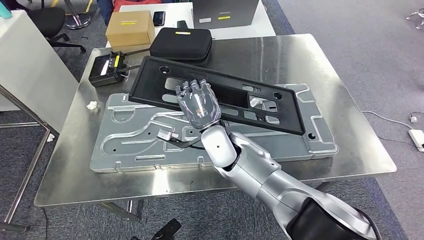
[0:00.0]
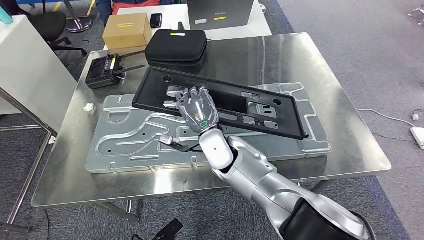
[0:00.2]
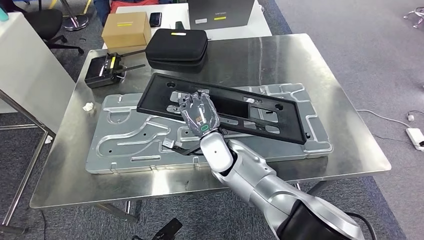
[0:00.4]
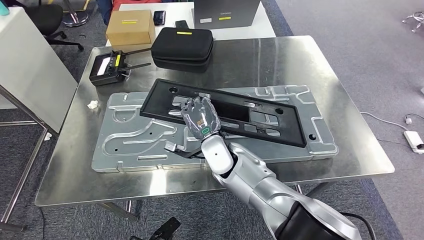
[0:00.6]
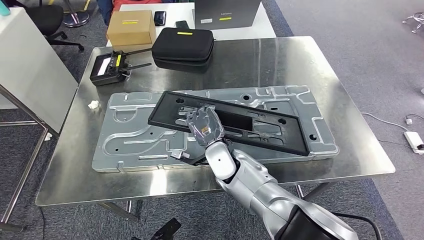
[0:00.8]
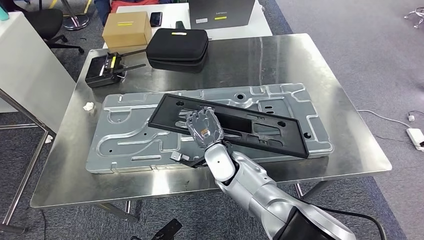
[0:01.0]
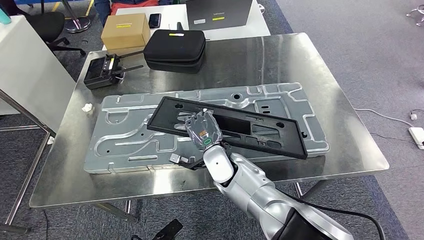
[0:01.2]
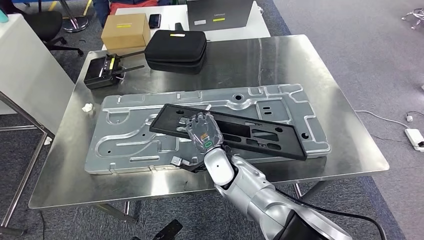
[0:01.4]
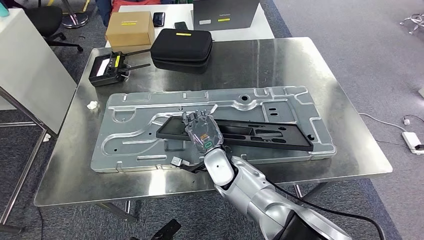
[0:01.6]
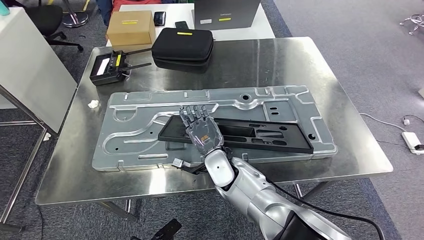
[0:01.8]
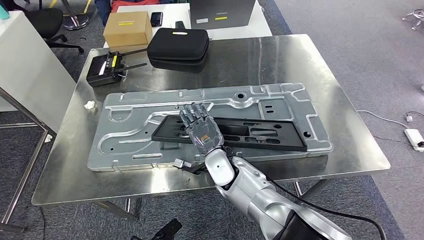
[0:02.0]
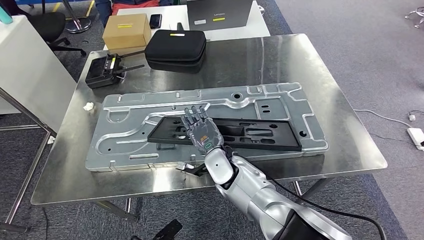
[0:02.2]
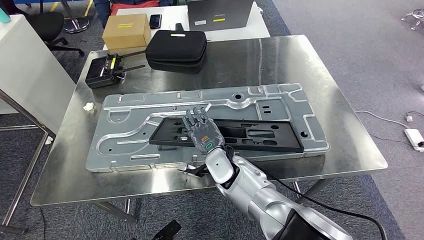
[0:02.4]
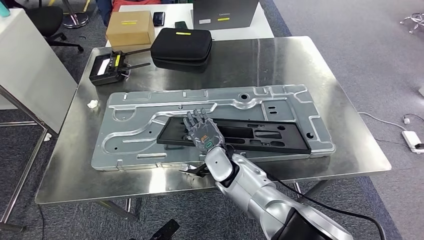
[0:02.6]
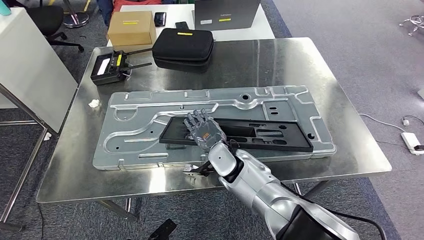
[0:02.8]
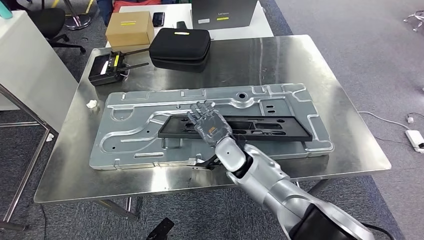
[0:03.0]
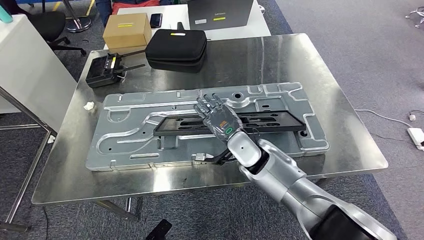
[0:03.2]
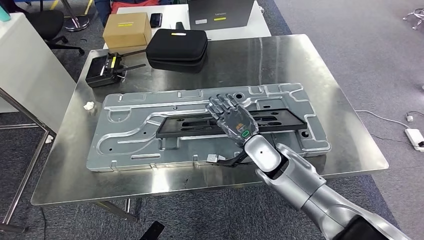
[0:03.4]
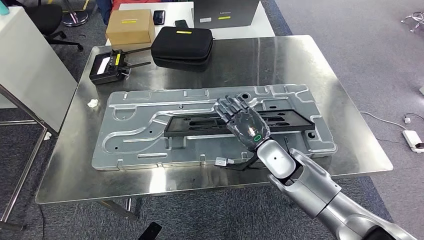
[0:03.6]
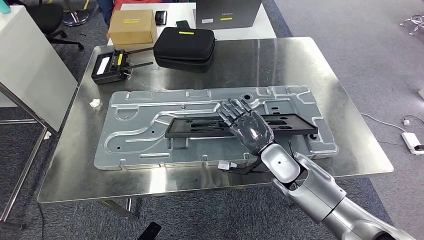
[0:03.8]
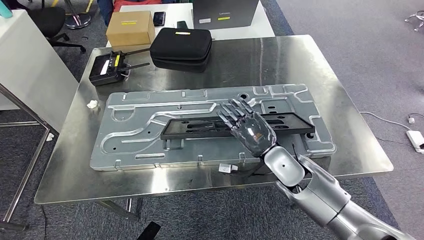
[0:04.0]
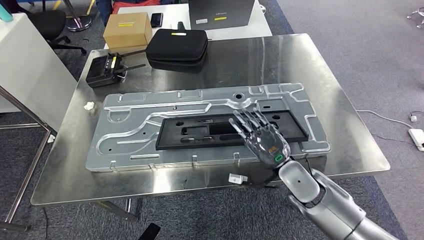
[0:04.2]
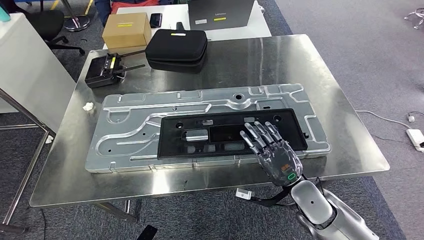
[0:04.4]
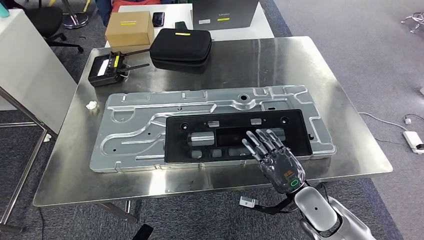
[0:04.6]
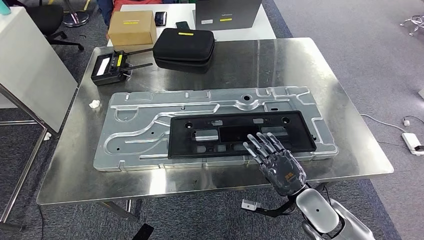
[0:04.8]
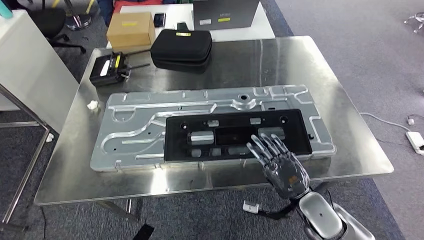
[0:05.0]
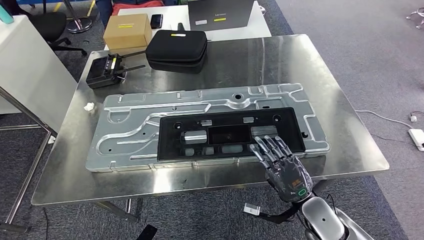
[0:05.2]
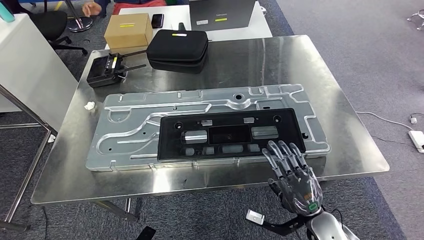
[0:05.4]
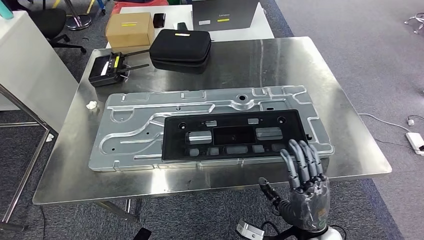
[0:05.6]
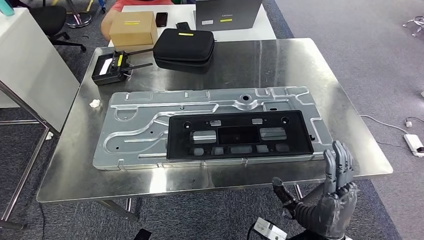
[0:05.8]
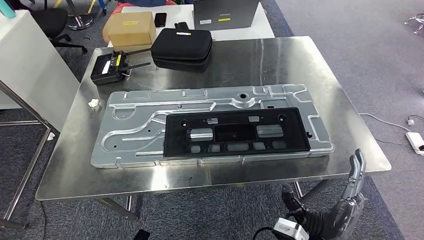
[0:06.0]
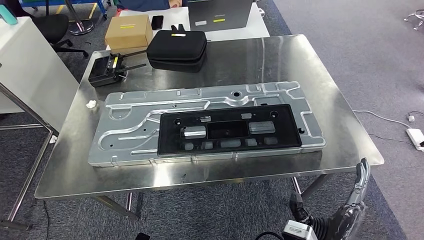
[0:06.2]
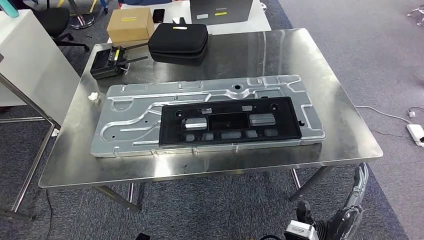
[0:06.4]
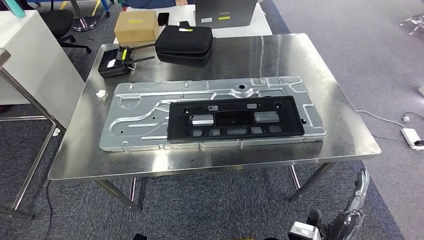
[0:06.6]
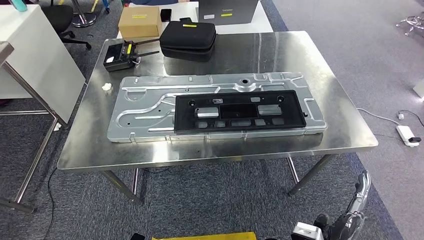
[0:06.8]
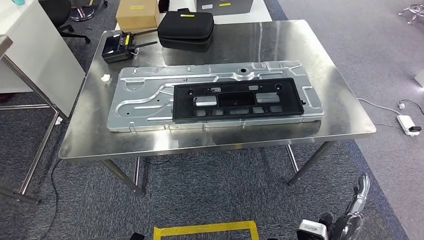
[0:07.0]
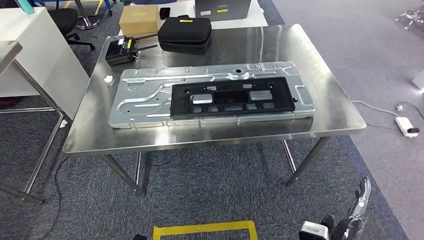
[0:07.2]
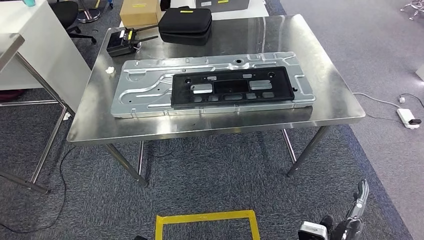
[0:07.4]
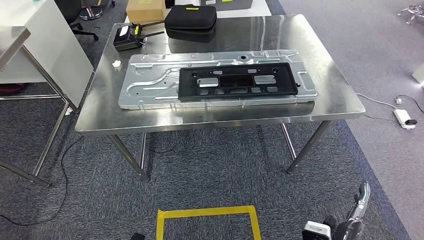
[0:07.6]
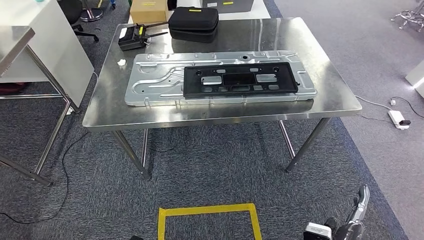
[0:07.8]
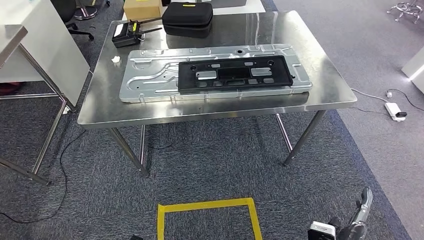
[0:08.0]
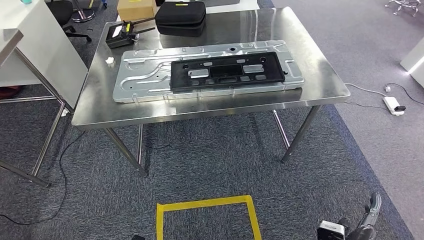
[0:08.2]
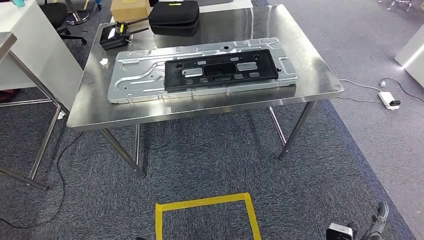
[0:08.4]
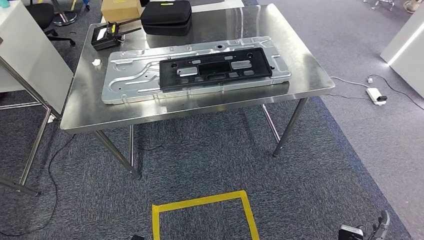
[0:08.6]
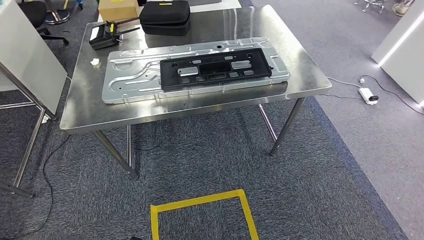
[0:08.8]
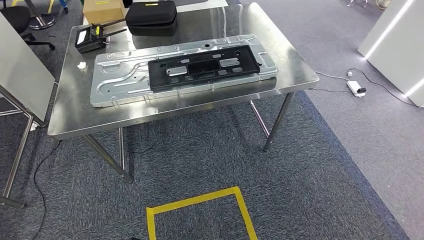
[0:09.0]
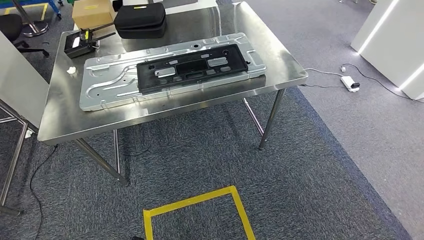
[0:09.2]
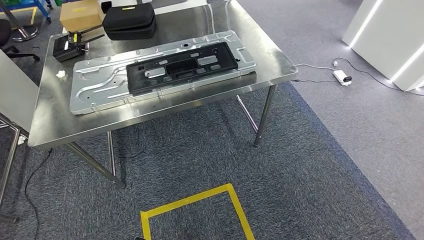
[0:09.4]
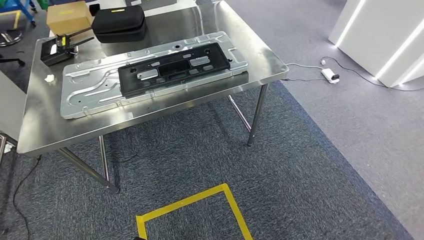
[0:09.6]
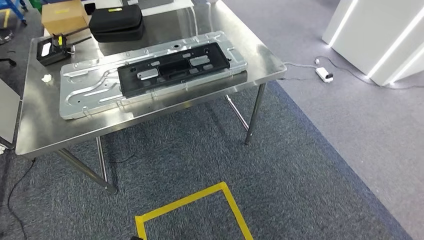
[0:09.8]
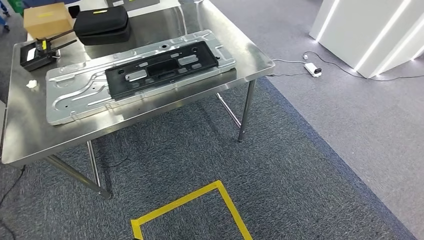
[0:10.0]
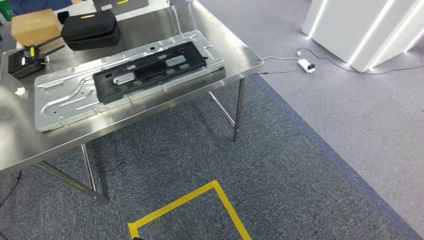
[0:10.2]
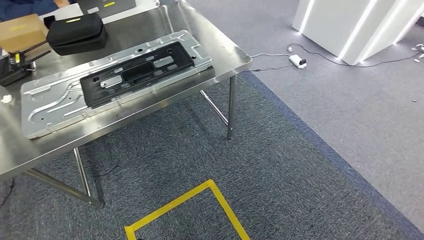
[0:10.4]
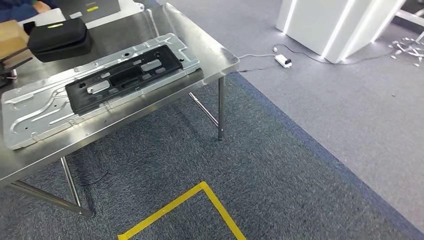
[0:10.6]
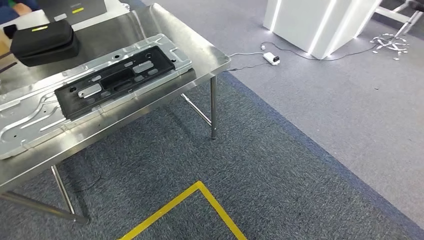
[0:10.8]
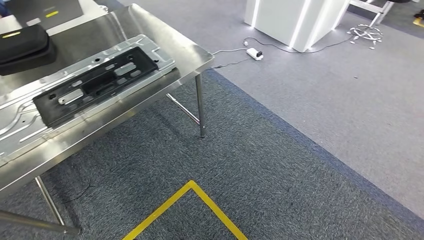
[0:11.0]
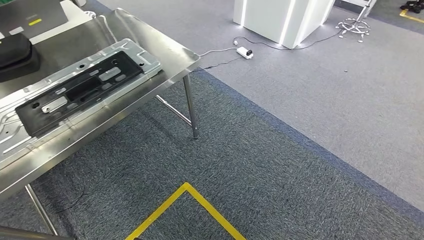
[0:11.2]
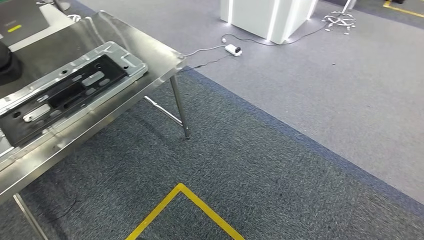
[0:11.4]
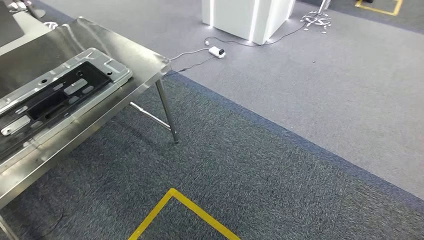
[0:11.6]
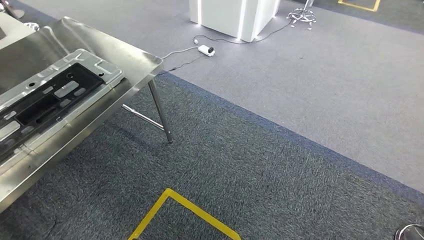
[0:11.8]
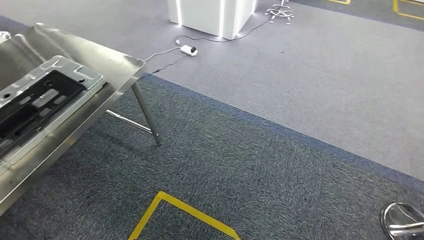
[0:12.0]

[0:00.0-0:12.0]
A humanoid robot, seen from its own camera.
Step, 0:00.0 to 0:05.4: Insert the large material into the corresponding slot on the workbench.

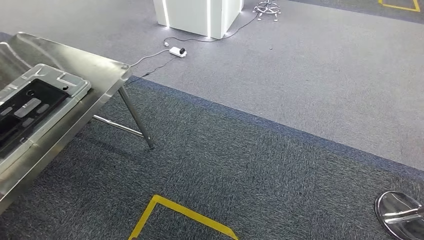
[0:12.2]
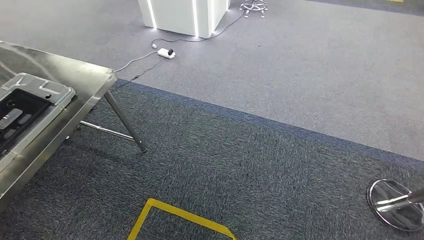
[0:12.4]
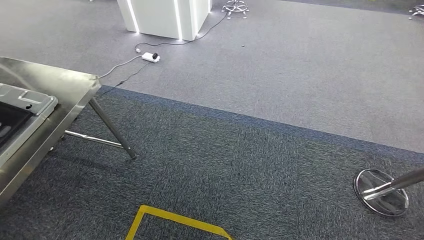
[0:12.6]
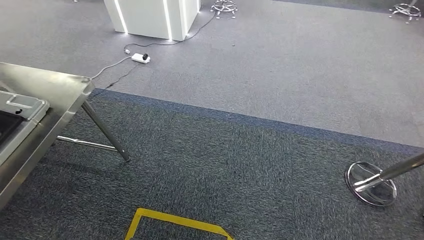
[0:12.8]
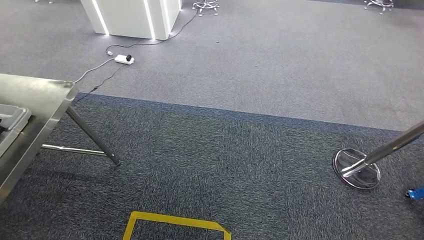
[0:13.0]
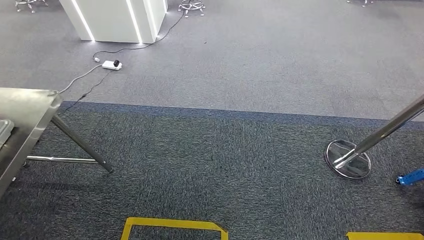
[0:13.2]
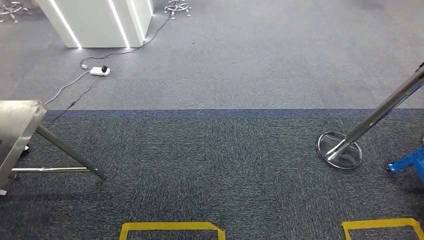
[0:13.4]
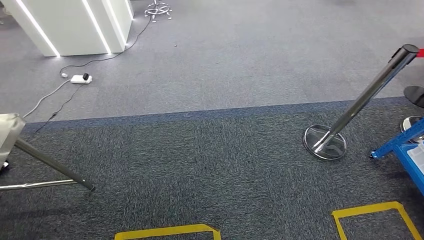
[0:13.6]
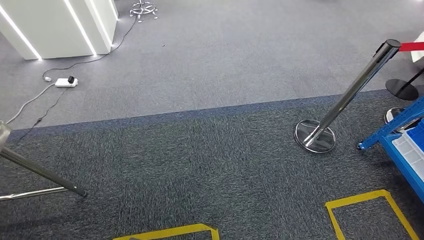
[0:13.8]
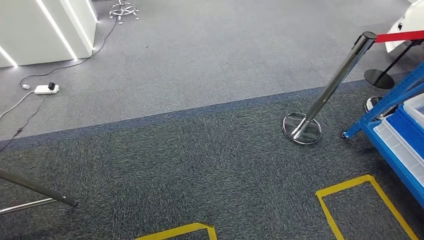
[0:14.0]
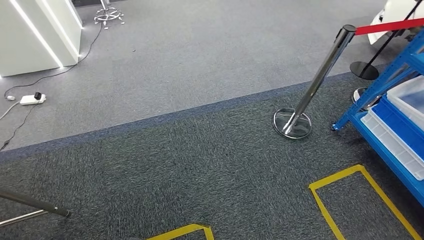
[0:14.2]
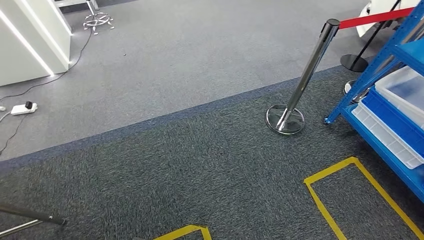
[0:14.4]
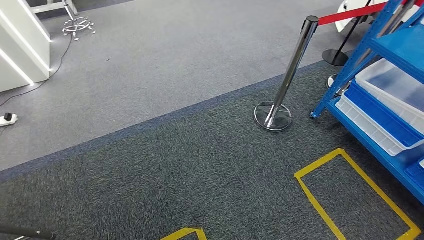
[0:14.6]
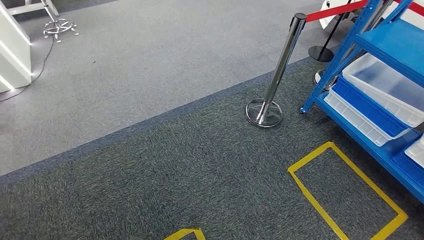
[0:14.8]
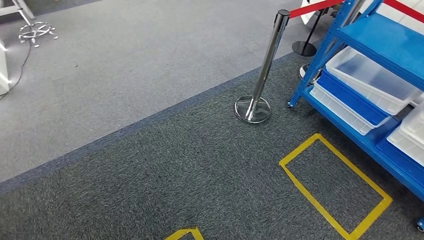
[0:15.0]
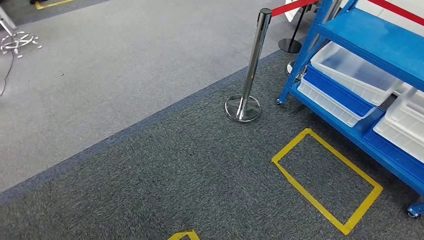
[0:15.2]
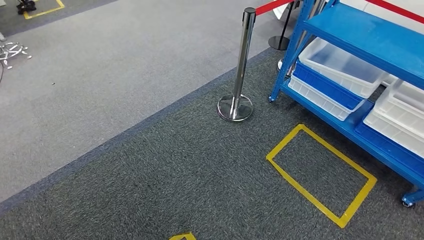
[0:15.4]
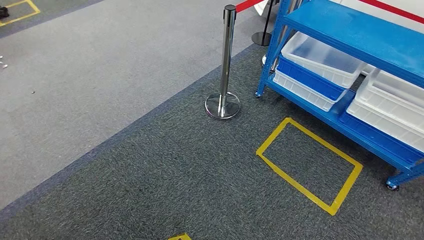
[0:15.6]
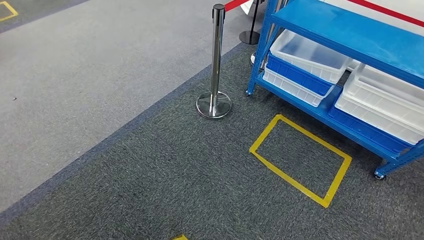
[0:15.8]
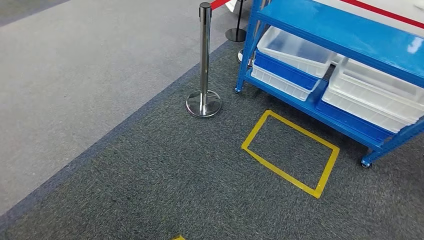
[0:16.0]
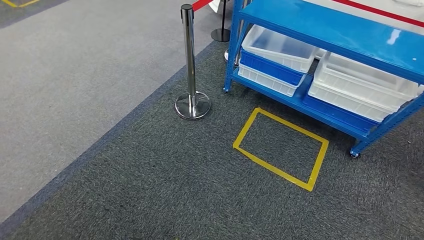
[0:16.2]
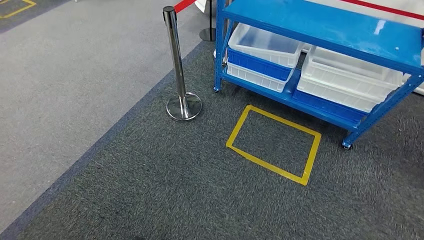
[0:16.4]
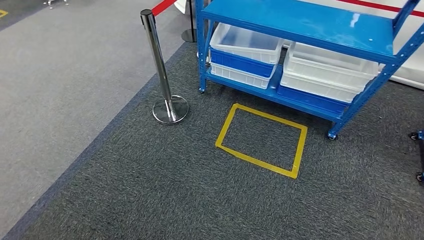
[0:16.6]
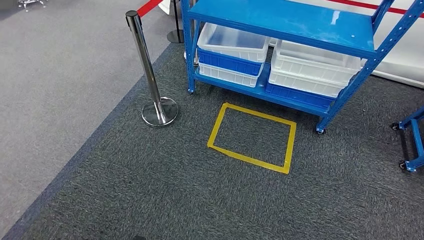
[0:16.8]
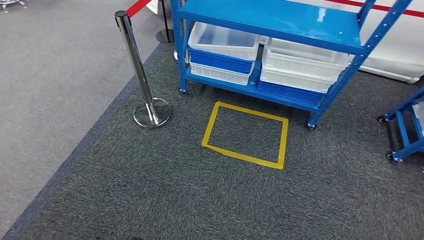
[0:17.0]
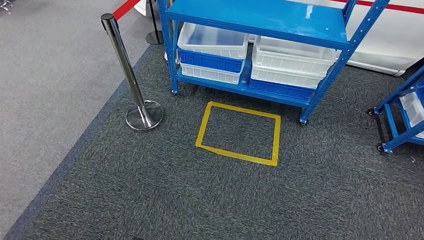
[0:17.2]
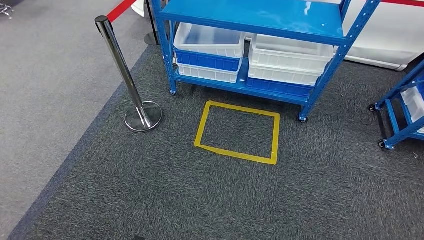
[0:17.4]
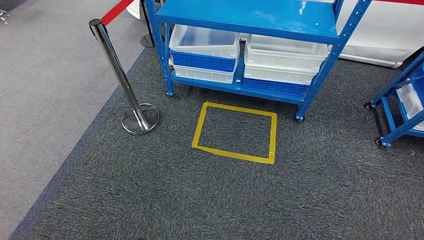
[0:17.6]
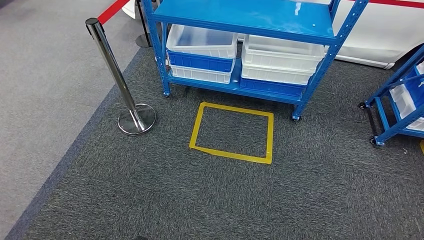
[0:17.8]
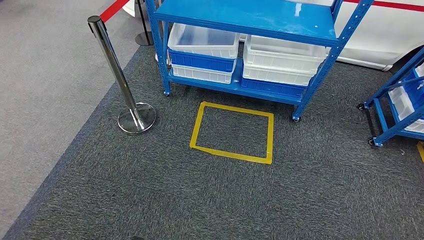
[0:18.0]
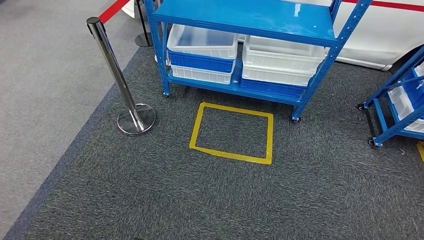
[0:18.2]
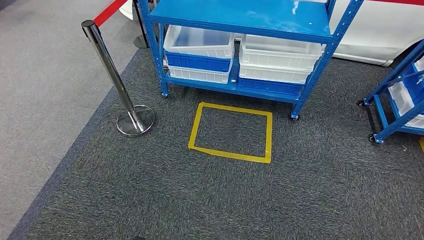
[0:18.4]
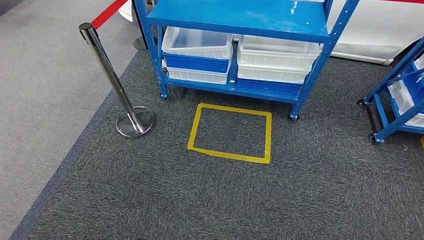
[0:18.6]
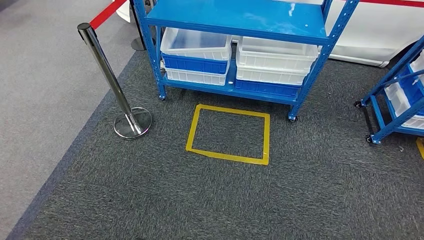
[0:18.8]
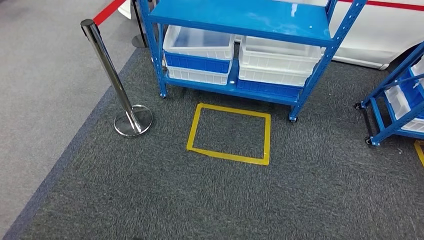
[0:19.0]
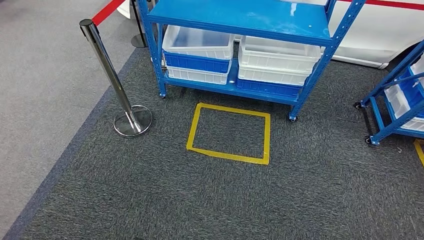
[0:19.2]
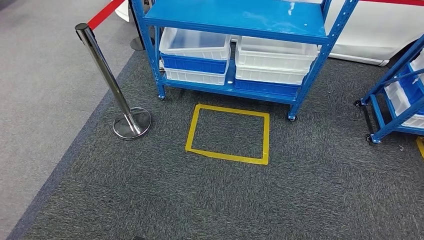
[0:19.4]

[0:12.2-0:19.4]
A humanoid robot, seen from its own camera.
0:18.0 to 0:19.4: Both hands stay about where they are.
